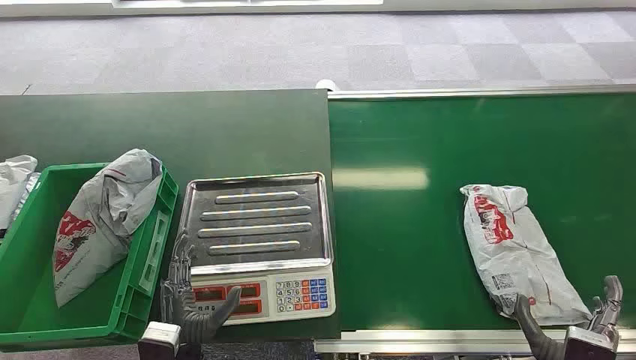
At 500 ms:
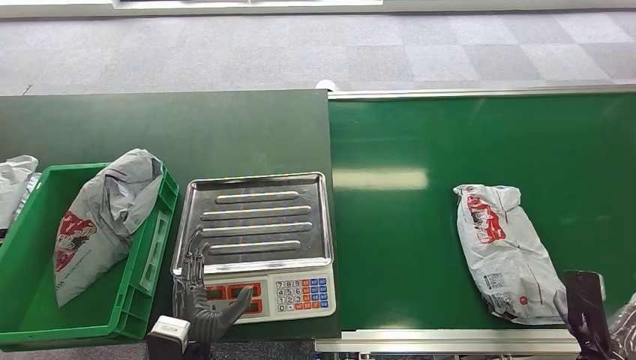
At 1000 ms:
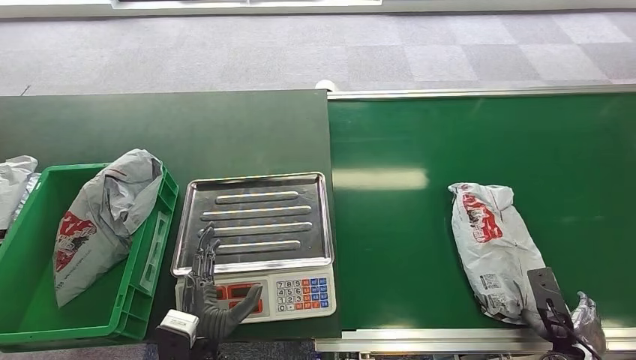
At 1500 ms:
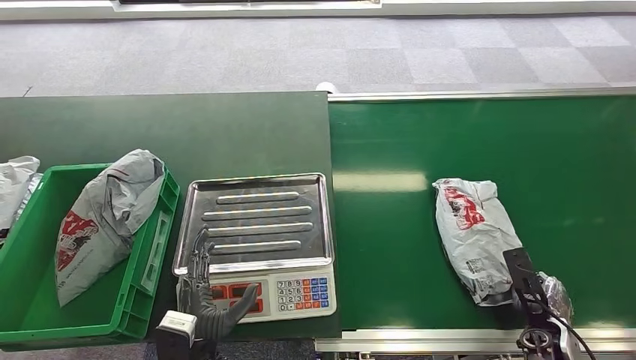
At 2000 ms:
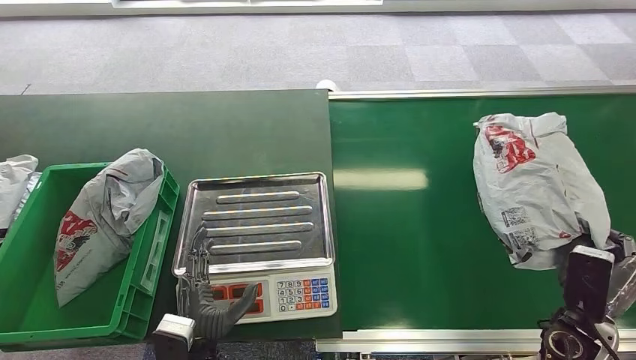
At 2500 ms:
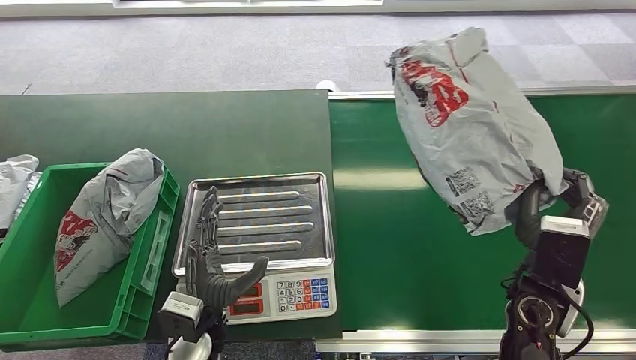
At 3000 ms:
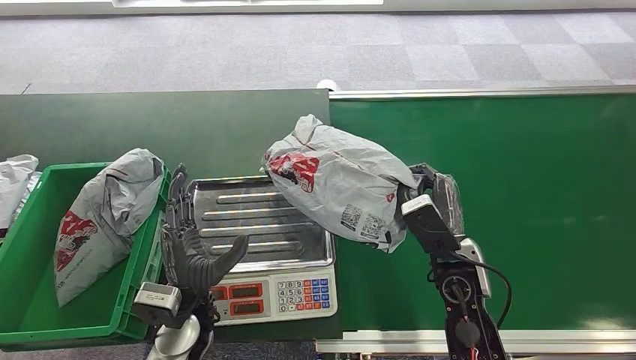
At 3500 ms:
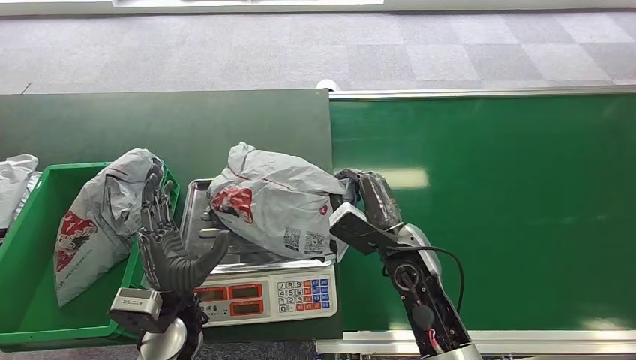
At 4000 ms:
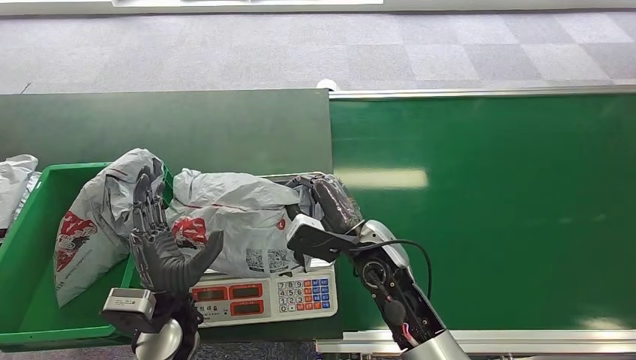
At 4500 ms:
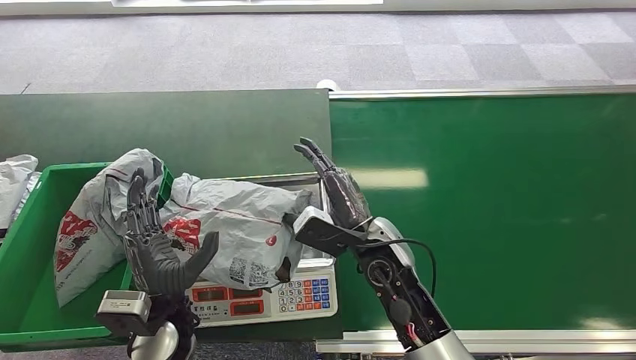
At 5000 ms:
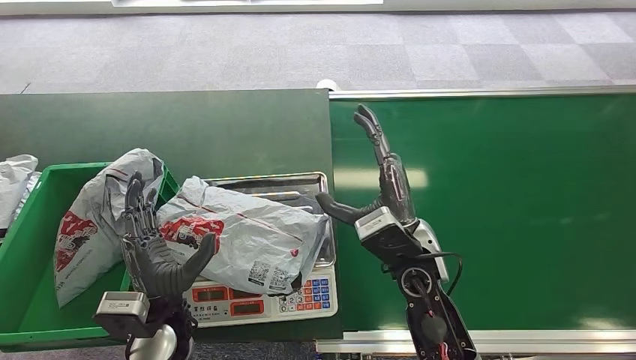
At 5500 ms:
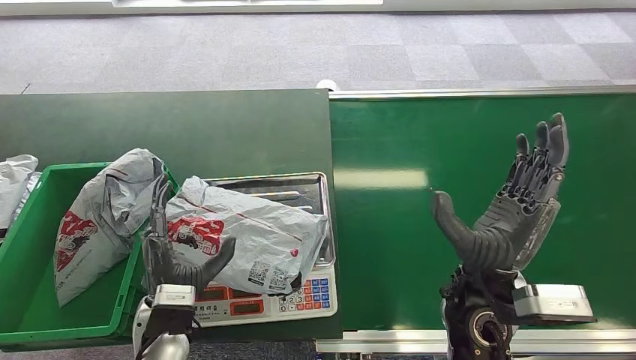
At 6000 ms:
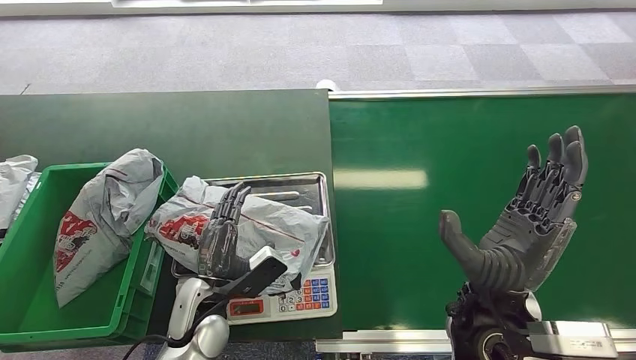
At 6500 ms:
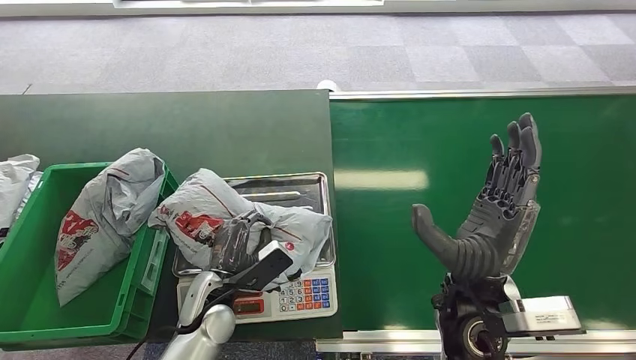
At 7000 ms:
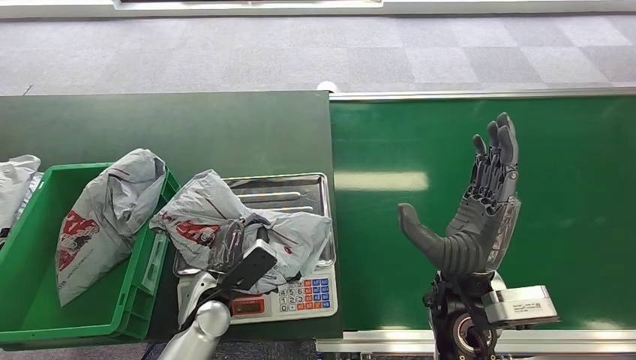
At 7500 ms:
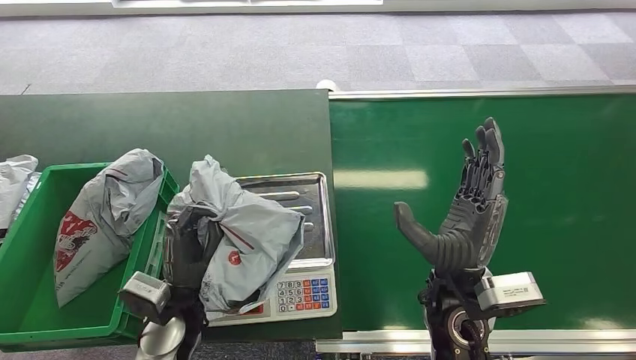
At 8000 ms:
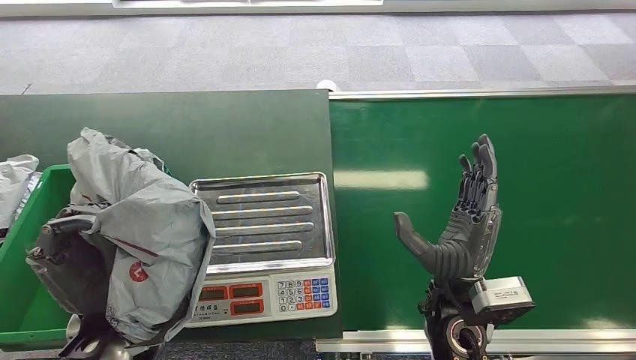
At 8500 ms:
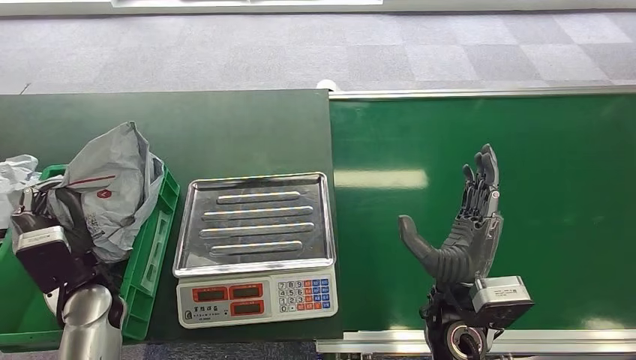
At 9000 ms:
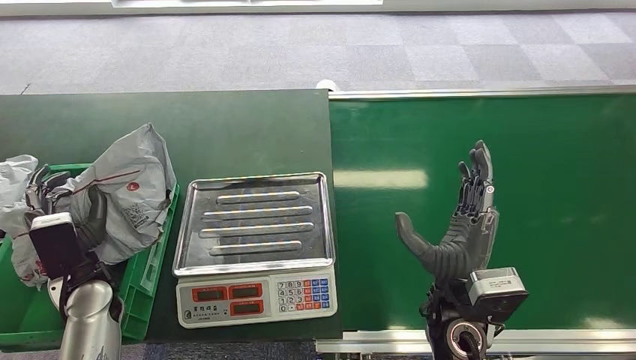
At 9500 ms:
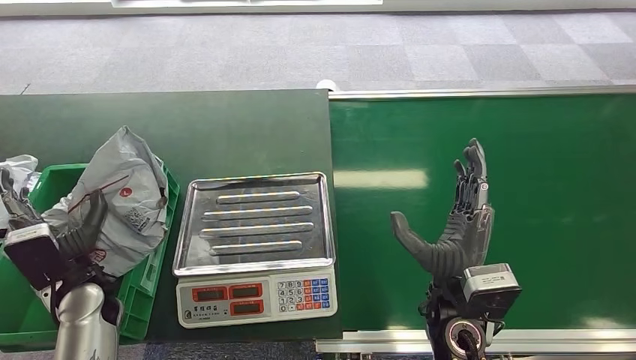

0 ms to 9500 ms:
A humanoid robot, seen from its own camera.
Step, 0 ms to 2000 ms: Pick up the package from the conveyor belt.
Step, 2500 ms to 4500 ms: Place the package onto the inbound machine.
Step, 5000 ms to 8000 ms: Pick up the package from the inbound machine.
Step, 8500 ms to 9500 ms: Place the package into the parcel locker.
4000 ms to 5500 ms: The right hand is displaced to the right, upward and backward by some 15 cm.
7500 ms to 9500 ms: The left hand is displaced to the left by about 15 cm.
